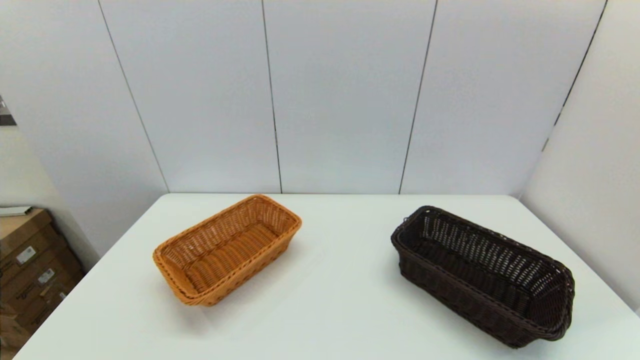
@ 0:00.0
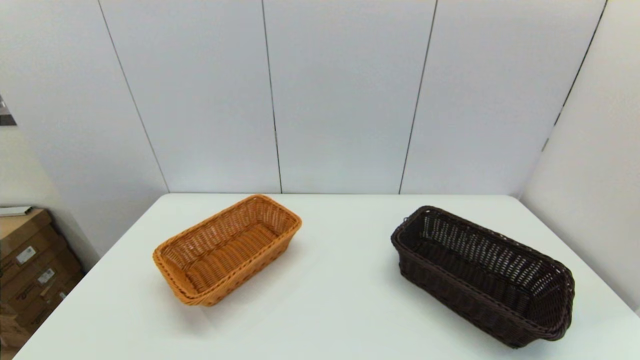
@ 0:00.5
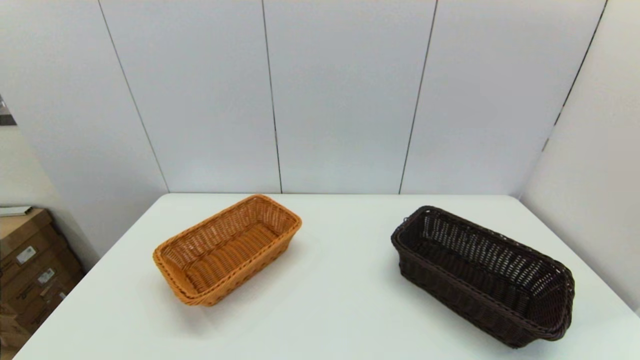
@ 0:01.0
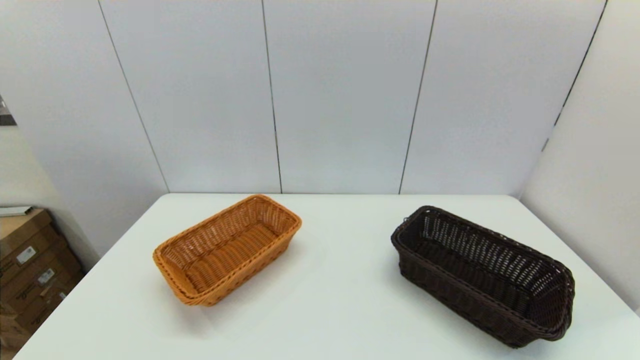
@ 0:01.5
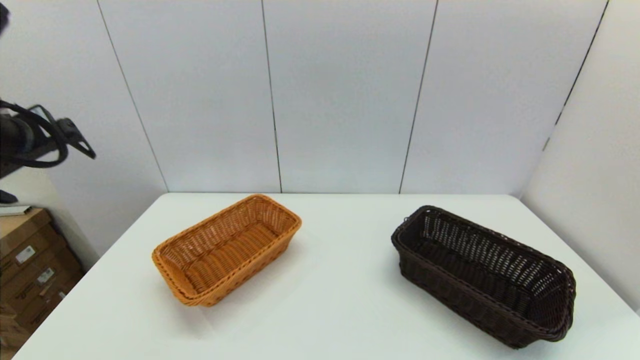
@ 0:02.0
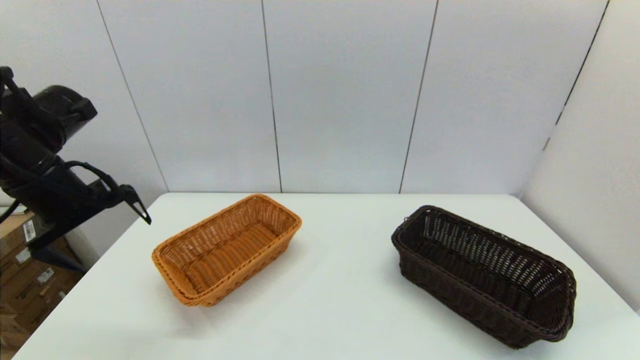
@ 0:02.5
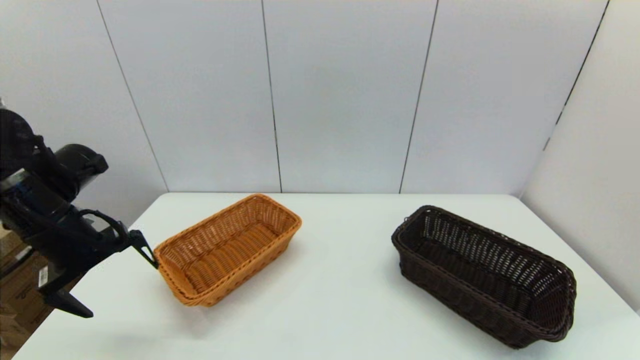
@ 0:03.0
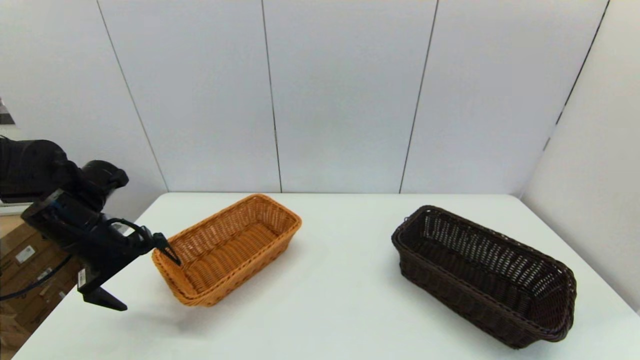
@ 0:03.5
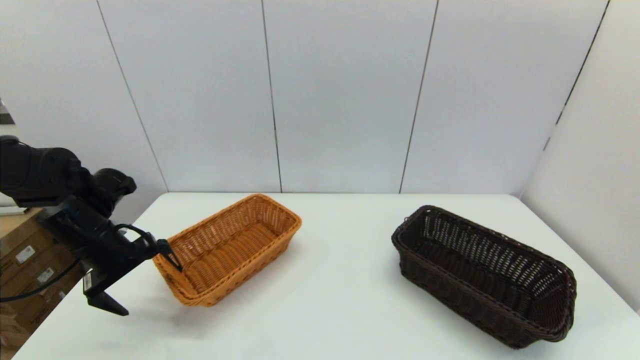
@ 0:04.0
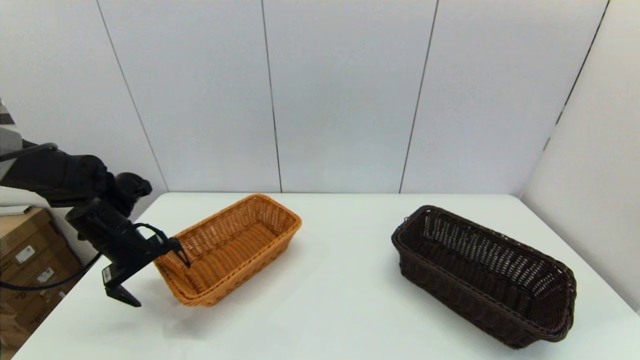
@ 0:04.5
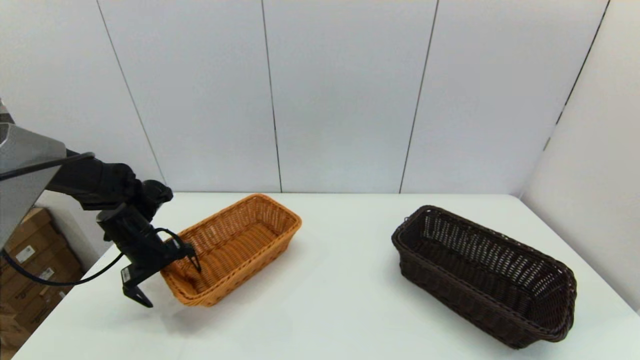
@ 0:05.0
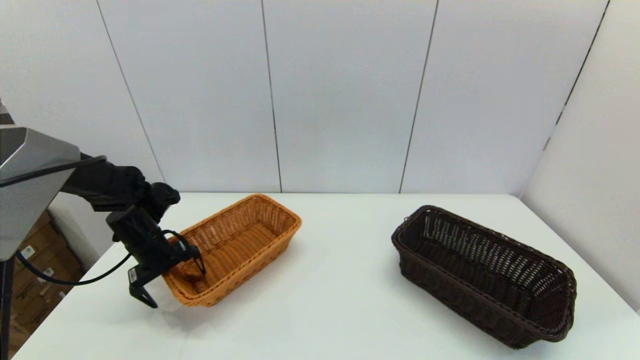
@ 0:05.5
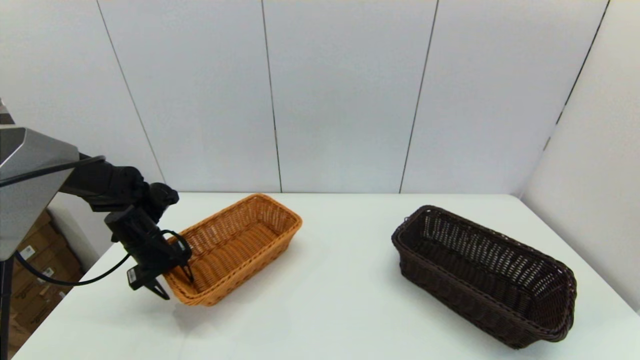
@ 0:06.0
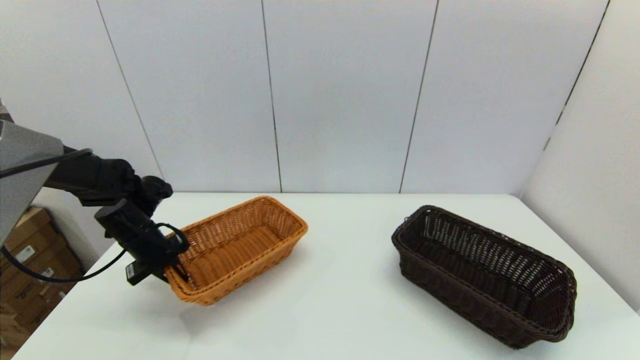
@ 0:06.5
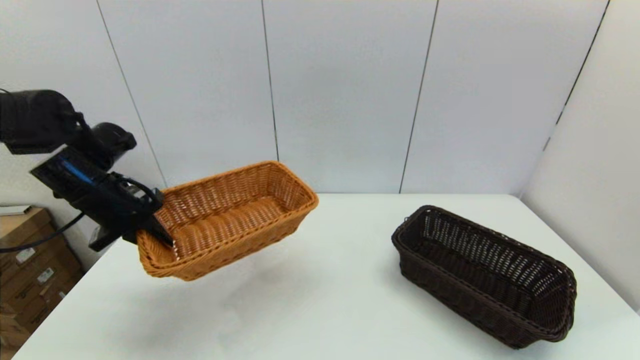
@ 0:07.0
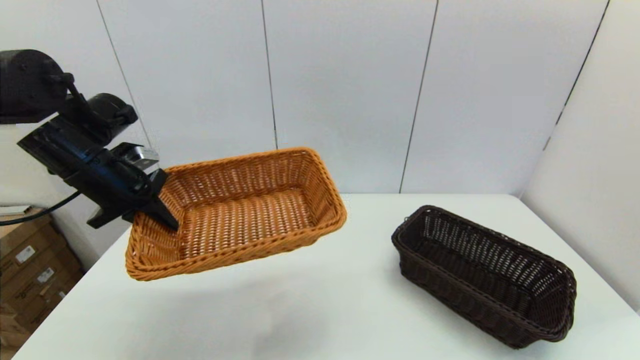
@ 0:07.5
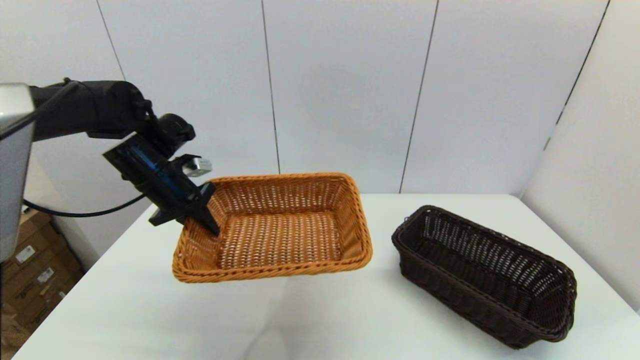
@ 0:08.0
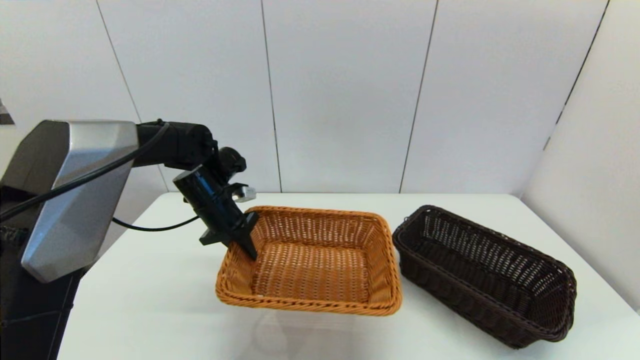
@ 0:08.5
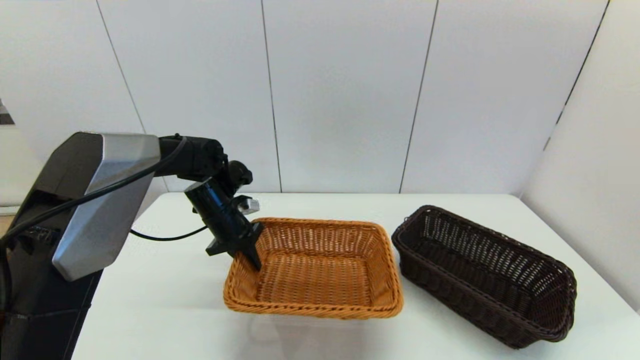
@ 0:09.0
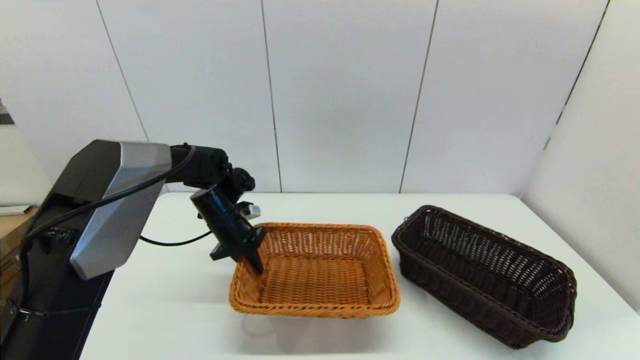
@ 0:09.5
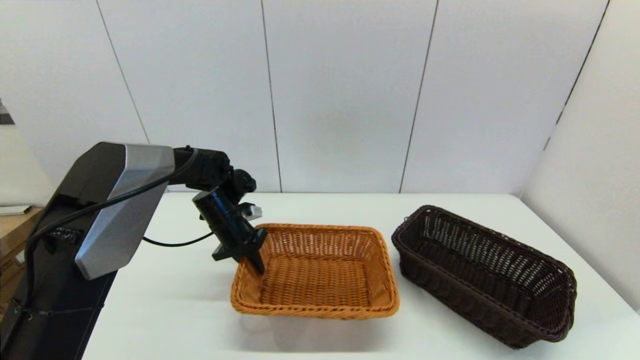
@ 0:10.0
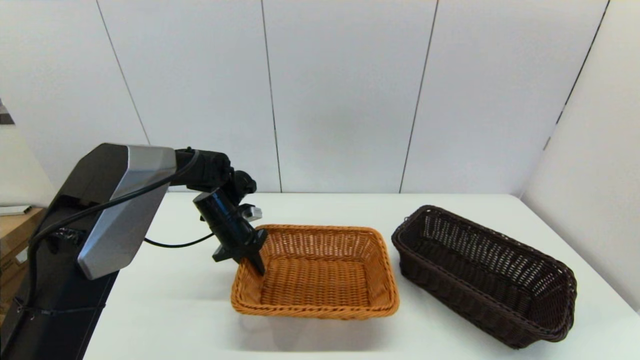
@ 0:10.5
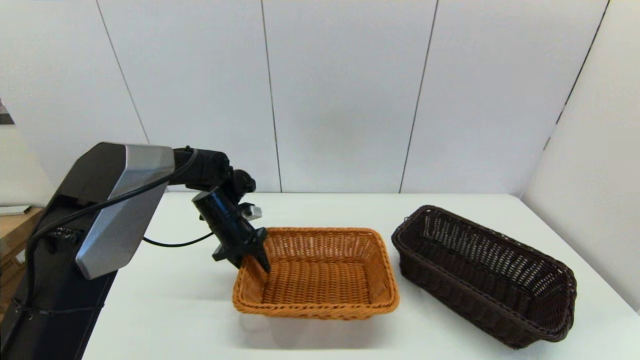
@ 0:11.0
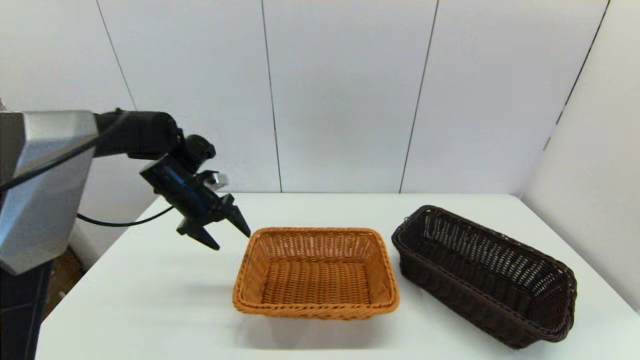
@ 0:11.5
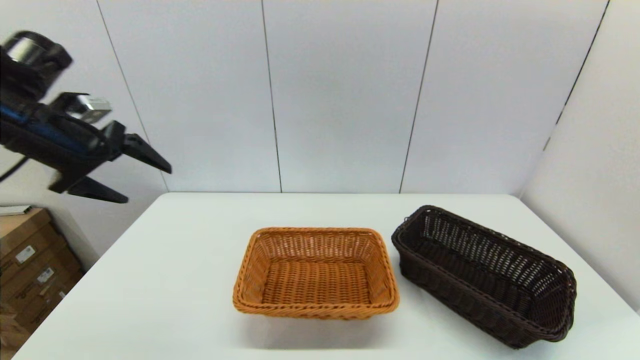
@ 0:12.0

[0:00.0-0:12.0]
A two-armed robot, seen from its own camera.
Task of the whole recording: stack a basket on top of another basket.
Step, 0:02.0 to 0:06.0: Grasp the light basket with the left gripper.
Step, 0:07.0 to 0:11.5: Place the light basket on the middle of the table with the left gripper.
0:00.0 to 0:02.0: The left gripper goes roughly 35 cm forward and upward.
0:02.0 to 0:04.0: The left gripper shifts about 20 cm downward.
0:04.0 to 0:06.0: The left gripper is displaced downward and forward by approximately 10 cm, and closes its fingers.
0:06.0 to 0:08.0: The left gripper moves upward and to the right, some 15 cm, and closes its fingers.
0:08.0 to 0:10.0: The left gripper moves downward and to the right, about 15 cm.
0:10.0 to 0:12.0: The left gripper heads upward, to the left and backward, covering roughly 30 cm, and opens up.

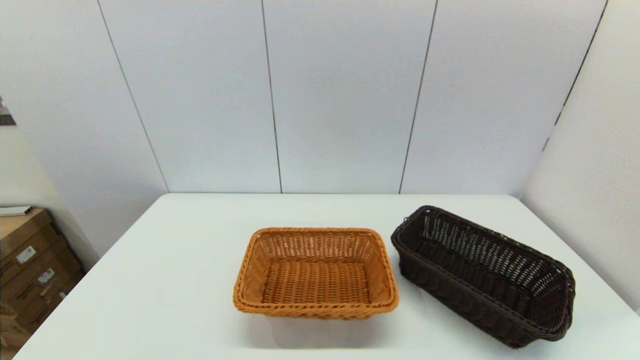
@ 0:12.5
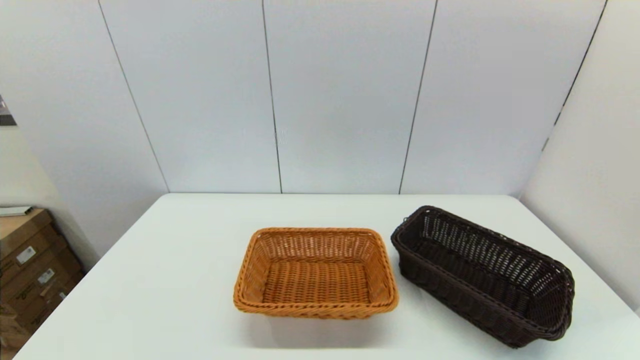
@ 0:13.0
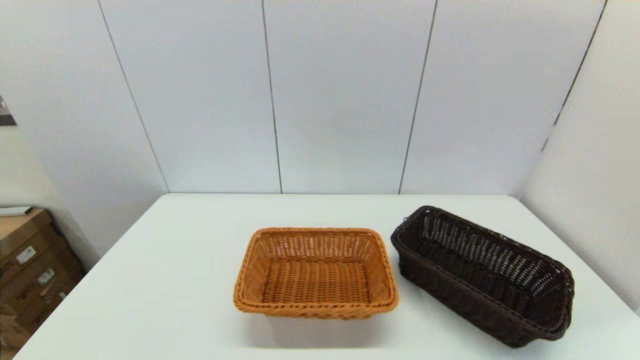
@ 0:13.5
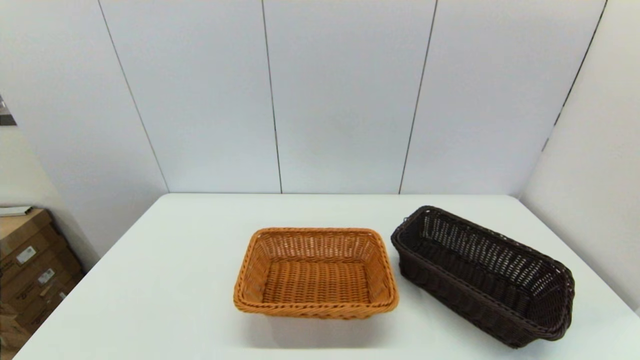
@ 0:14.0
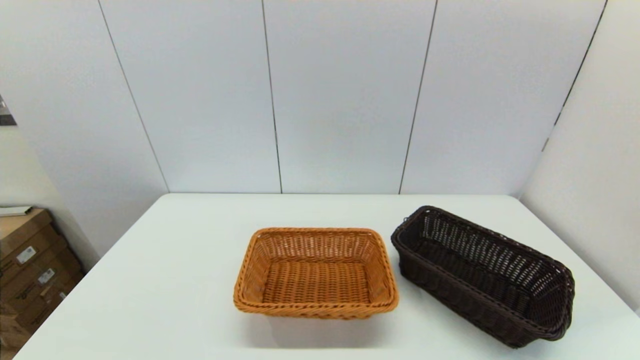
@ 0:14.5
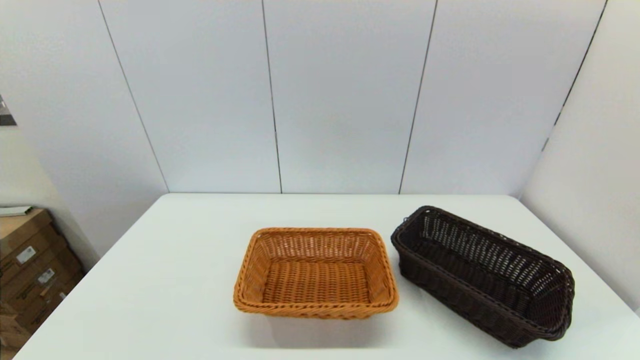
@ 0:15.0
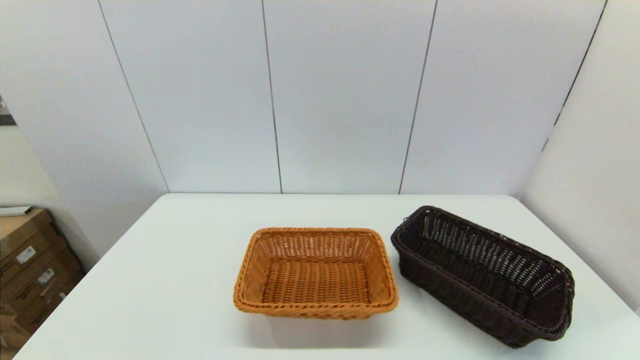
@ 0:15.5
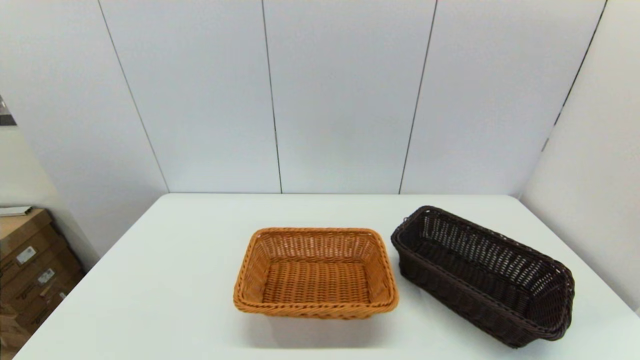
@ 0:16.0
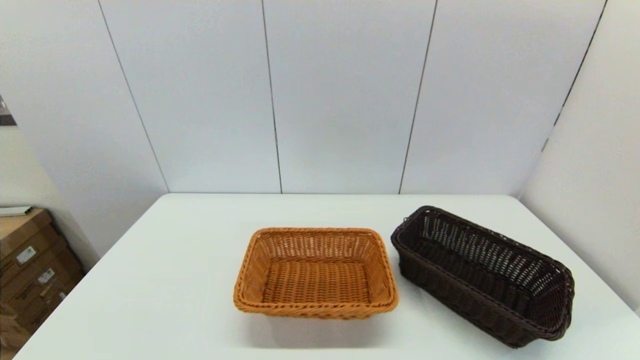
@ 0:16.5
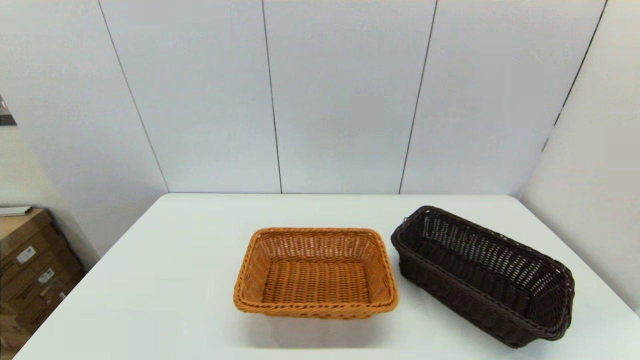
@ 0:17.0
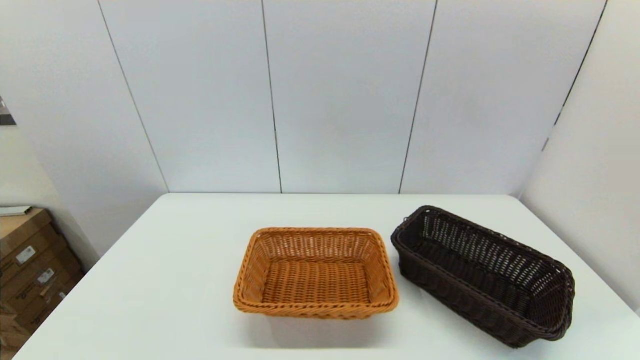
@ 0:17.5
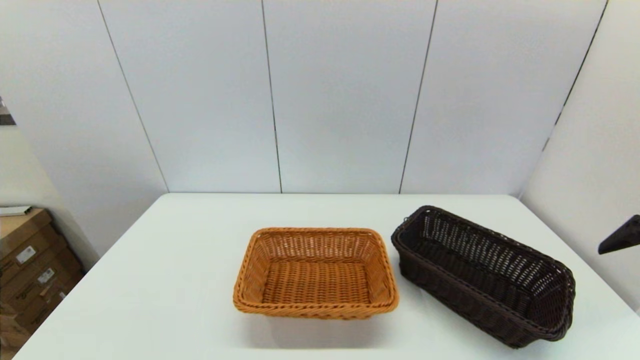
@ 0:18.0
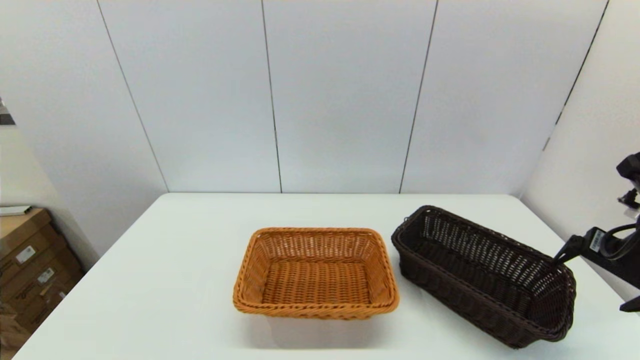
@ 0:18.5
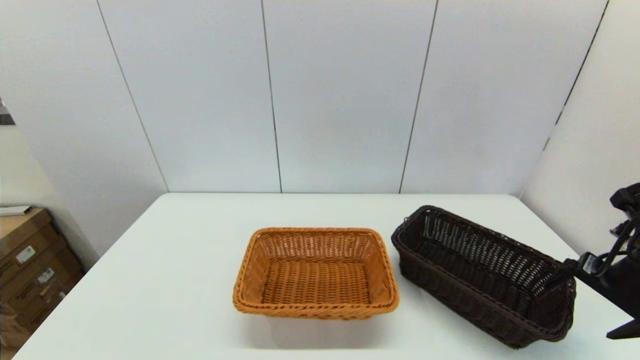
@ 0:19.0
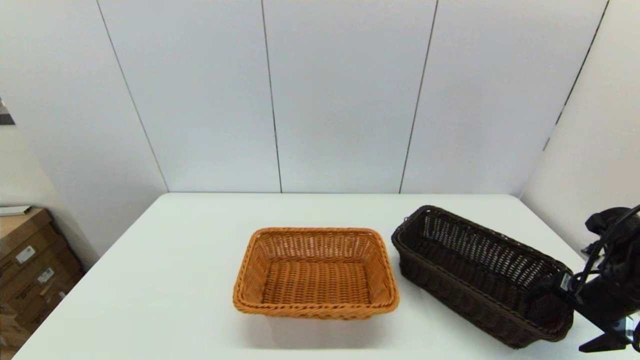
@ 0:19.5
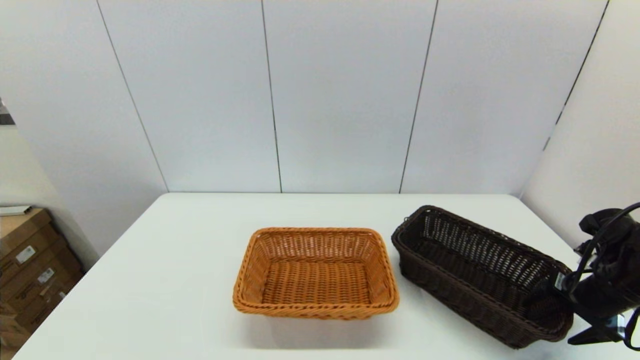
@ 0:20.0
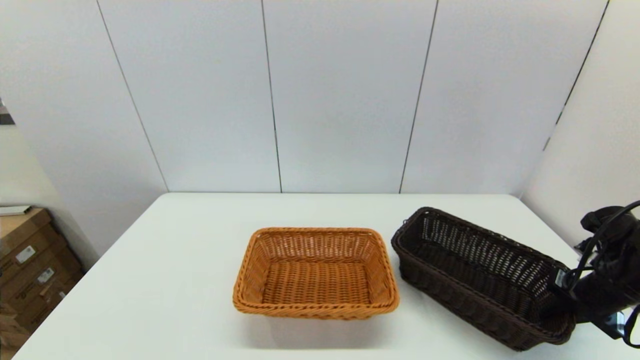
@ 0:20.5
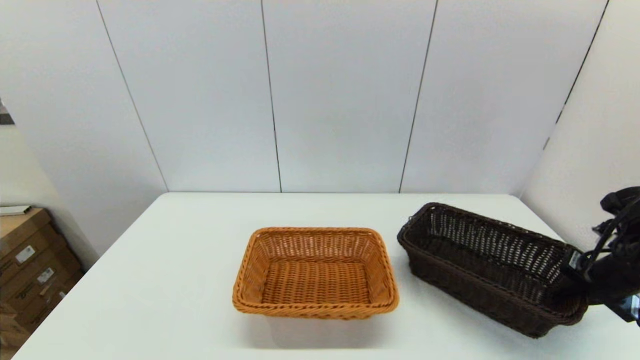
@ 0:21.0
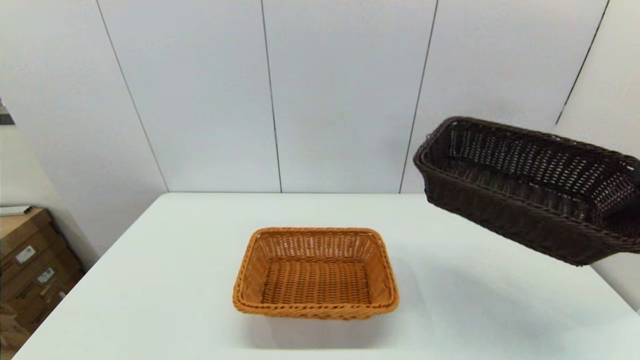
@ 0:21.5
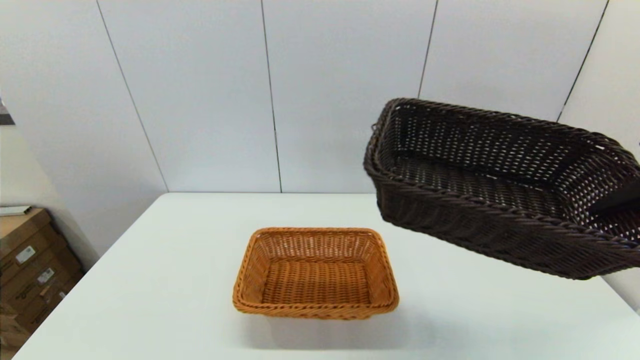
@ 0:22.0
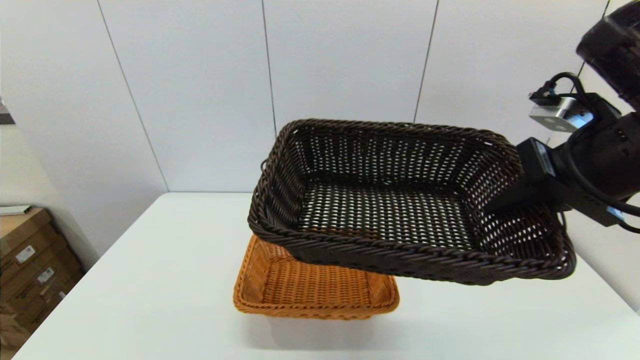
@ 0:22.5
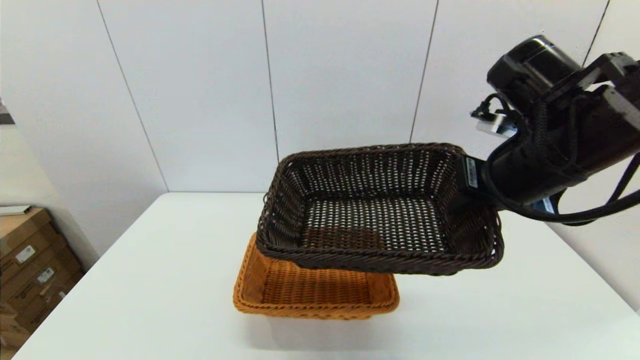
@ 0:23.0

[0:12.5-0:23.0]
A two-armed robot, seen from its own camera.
Task of the whole recording: stack a basket on top of another basket.
Step, 0:12.5 to 0:20.5: Grasp the dark basket with the right gripper.
0:16.5 to 0:19.0: The right gripper moves forward, roughly 30 cm.
0:19.0 to 0:21.0: The right gripper closes up.
0:21.0 to 0:23.0: The right gripper travels to the left and upward by roughly 25 cm.
